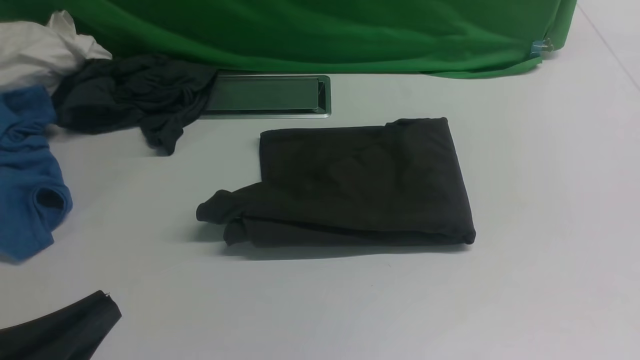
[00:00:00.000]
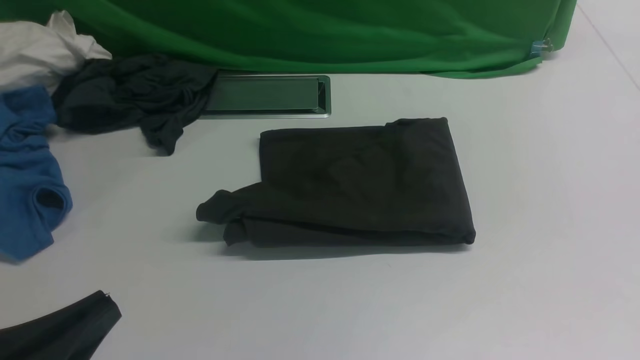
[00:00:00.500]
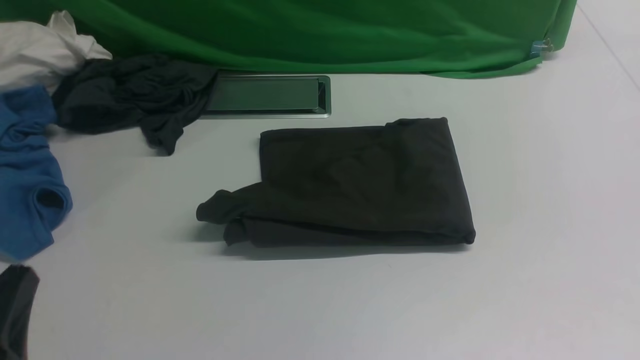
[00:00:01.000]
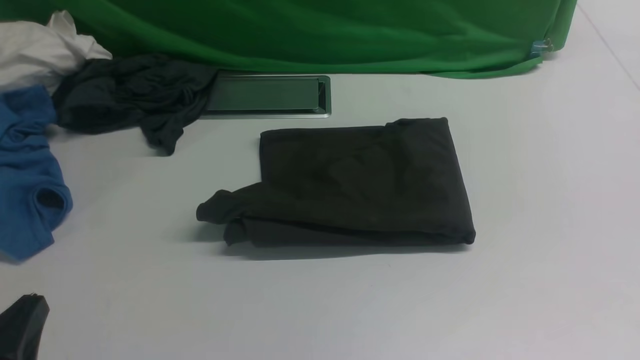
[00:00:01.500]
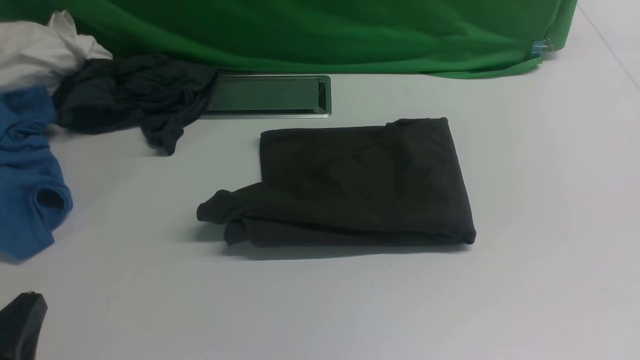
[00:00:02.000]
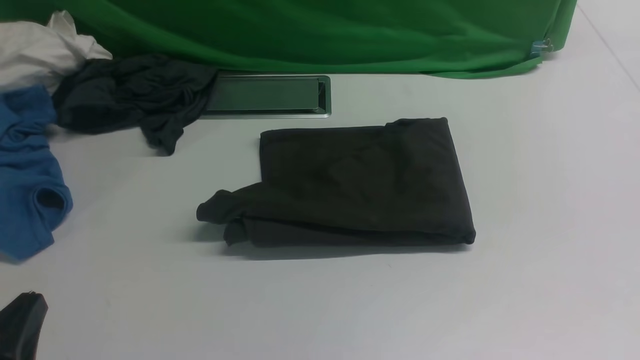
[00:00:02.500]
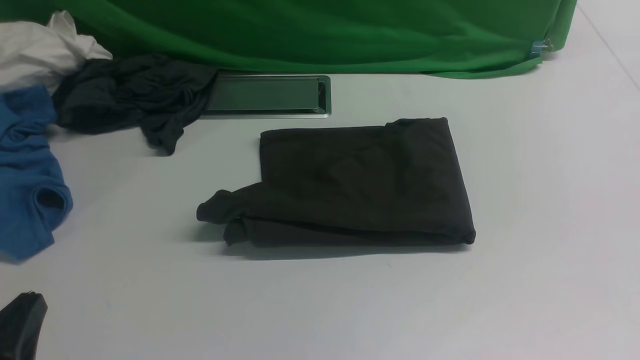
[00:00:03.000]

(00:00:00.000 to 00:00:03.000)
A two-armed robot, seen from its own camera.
00:00:00.000 - 00:00:01.500: The left gripper goes about 5 cm downward.
00:00:01.500 - 00:00:03.000: Both grippers stay put.
